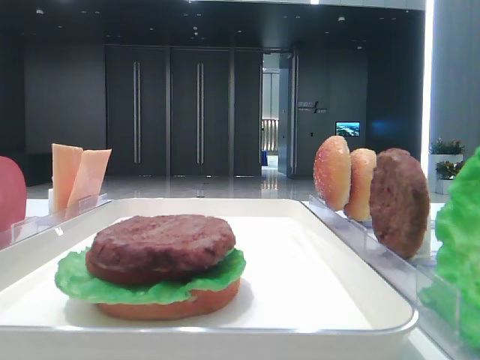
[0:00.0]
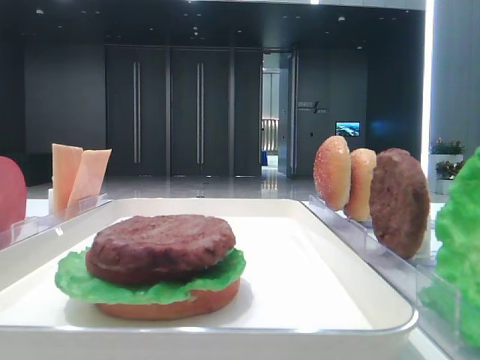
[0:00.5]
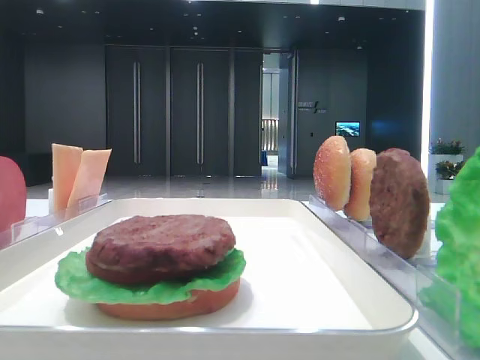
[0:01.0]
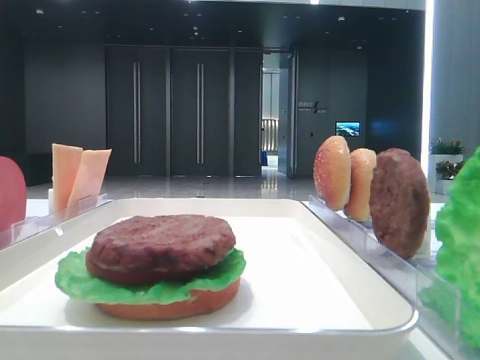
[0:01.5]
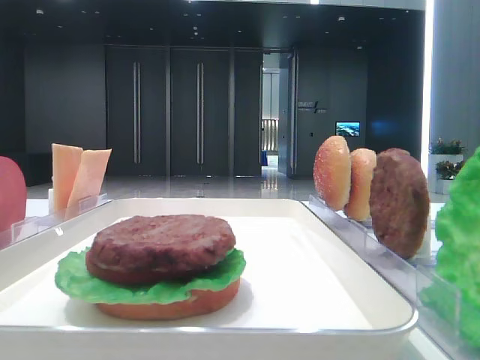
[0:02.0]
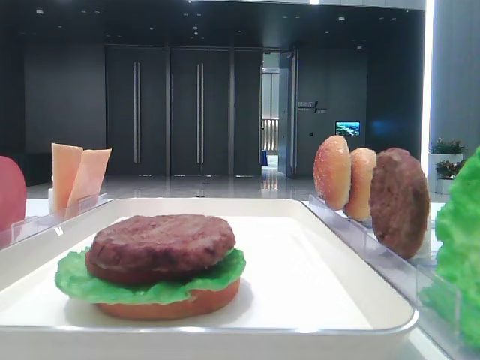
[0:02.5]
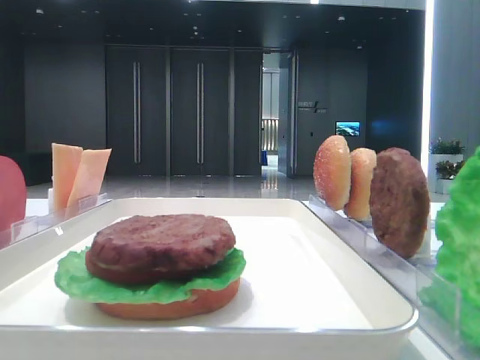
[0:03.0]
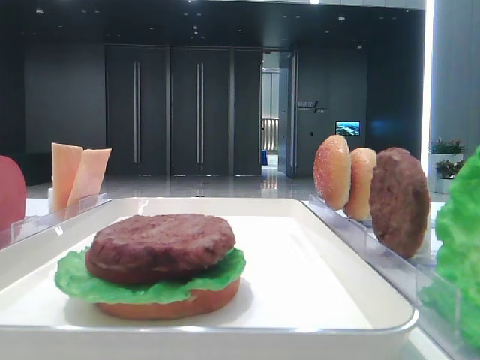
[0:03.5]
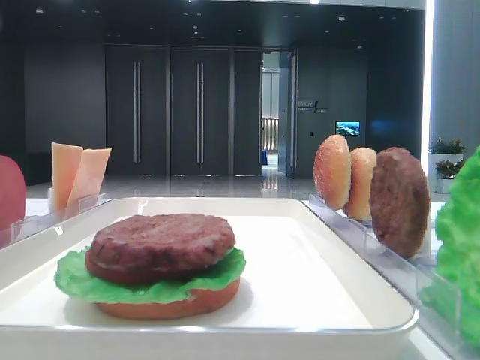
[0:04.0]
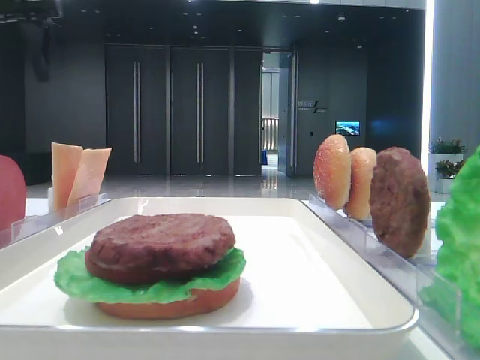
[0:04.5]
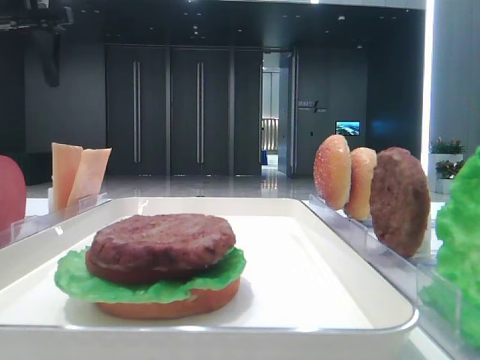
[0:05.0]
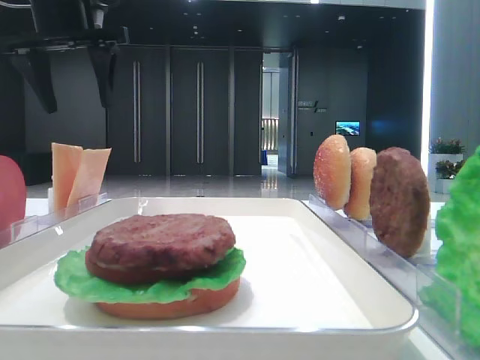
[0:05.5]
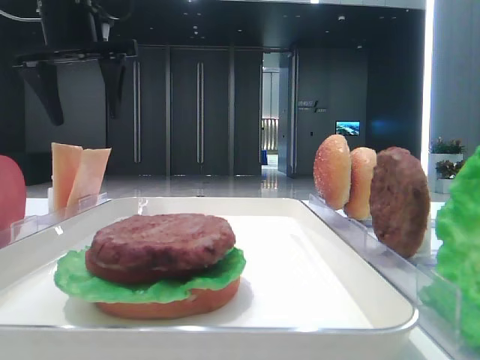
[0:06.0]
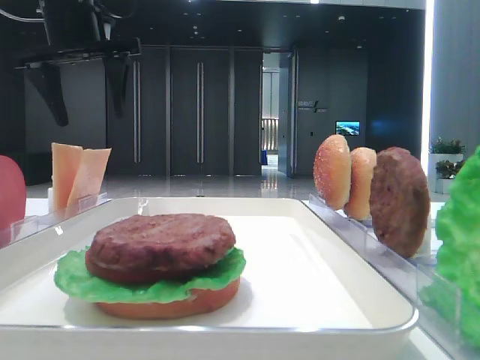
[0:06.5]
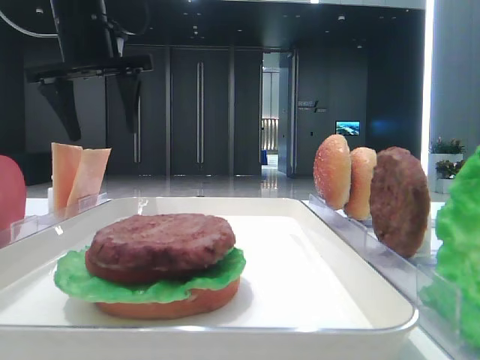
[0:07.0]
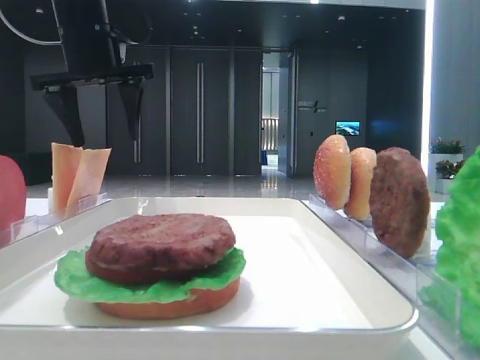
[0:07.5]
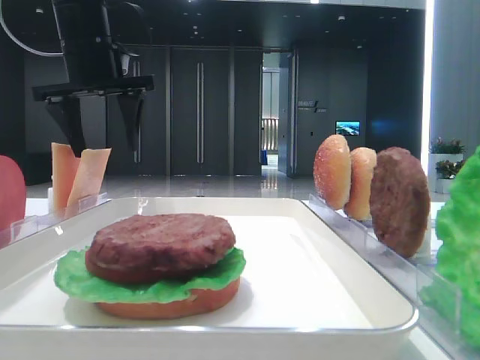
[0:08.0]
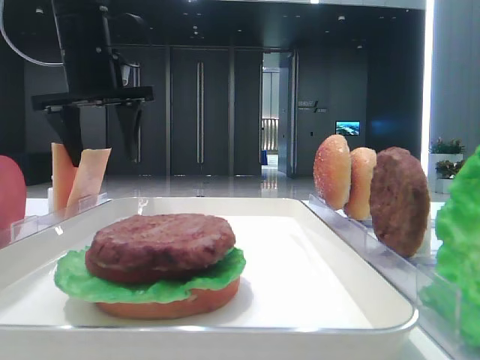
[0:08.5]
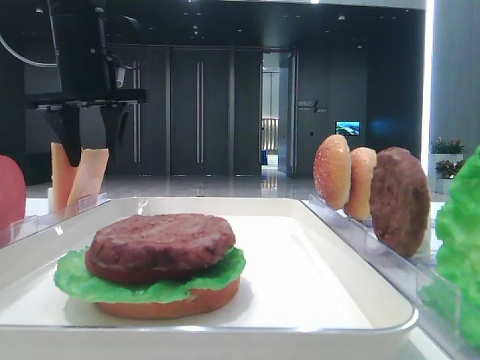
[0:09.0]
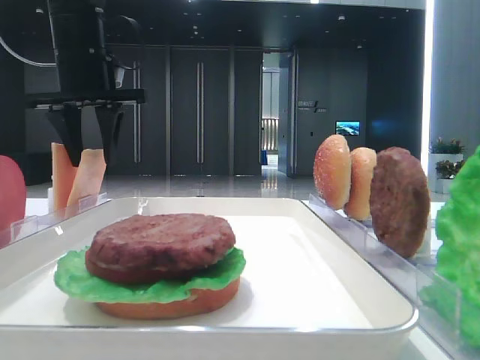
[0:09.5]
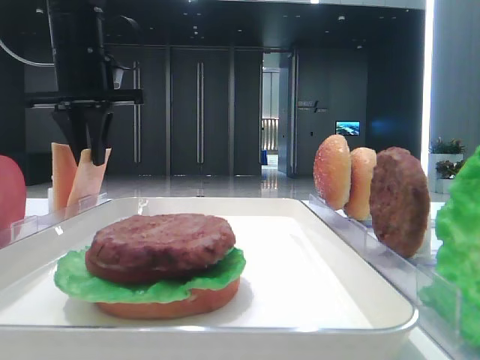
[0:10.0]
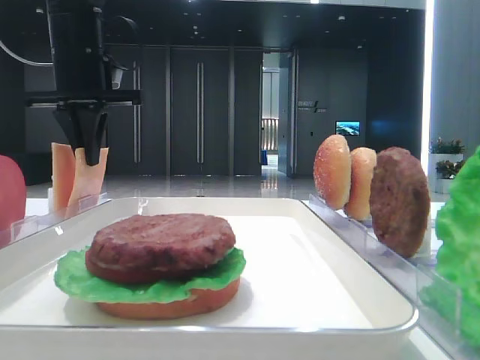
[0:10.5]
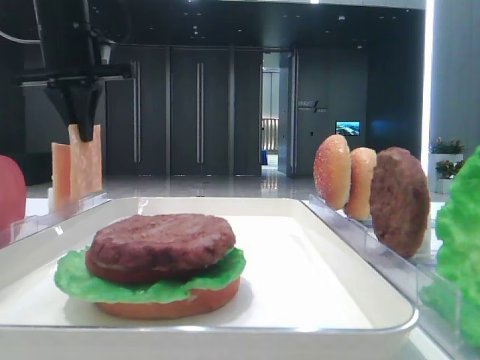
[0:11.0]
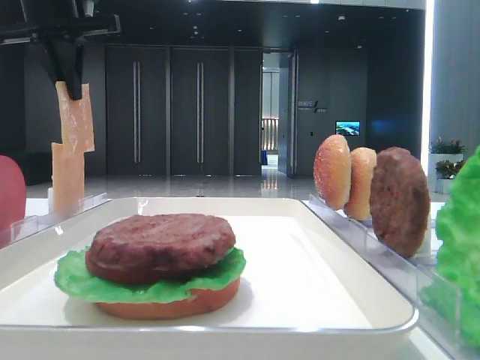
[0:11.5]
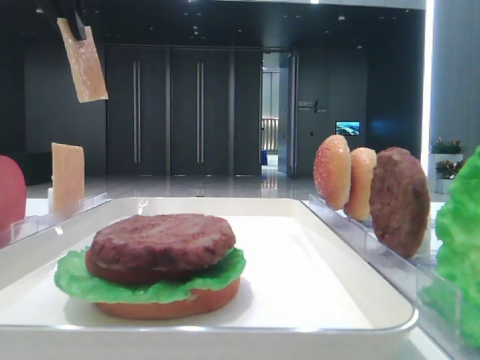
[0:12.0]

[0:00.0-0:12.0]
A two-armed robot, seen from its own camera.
Step, 0:00.0 to 0:10.0: Pick up the cheese slice with the left hand.
0:02.0 to 0:04.0: The left gripper goes some 35 cm forward.
0:04.0 to 0:06.0: The left gripper moves forward, to the right and downward, some 15 cm.
0:06.0 to 0:08.0: The grippers move only a little.
0:08.0 to 0:10.0: The left gripper closes its fingers.
0:10.0 to 0:12.0: The left gripper moves upward and backward, approximately 15 cm.

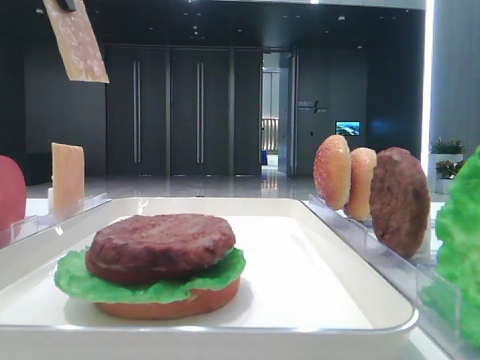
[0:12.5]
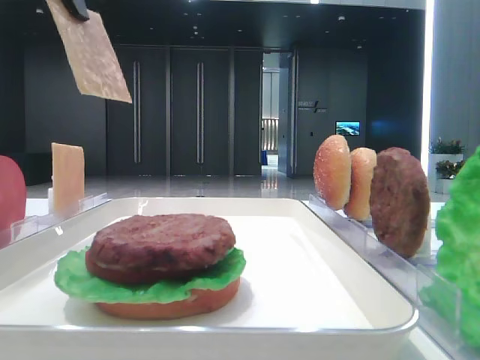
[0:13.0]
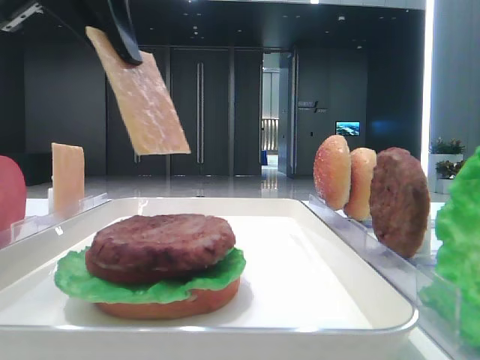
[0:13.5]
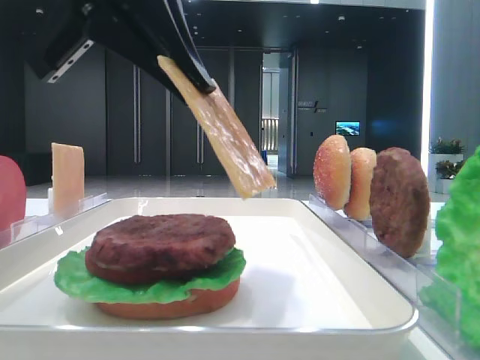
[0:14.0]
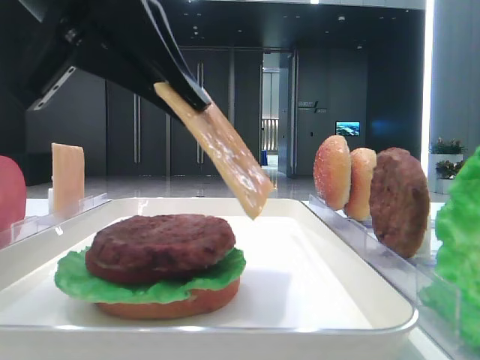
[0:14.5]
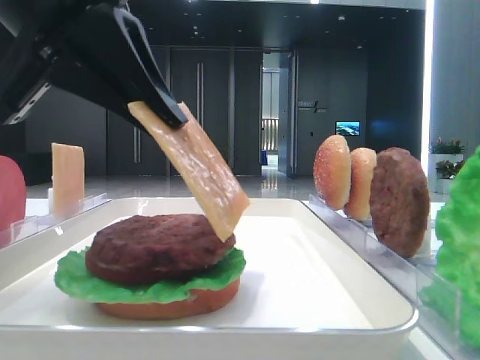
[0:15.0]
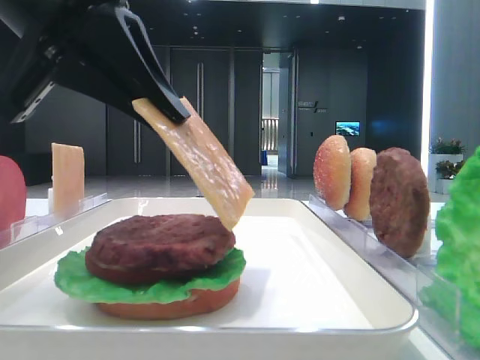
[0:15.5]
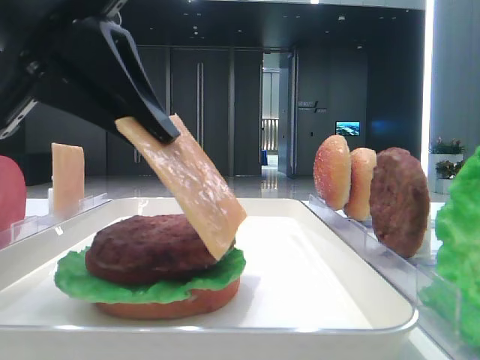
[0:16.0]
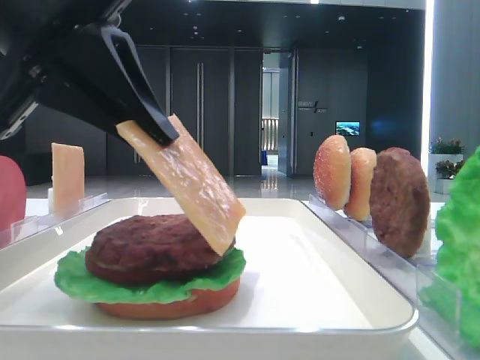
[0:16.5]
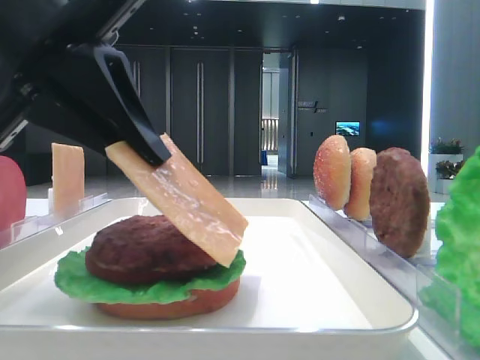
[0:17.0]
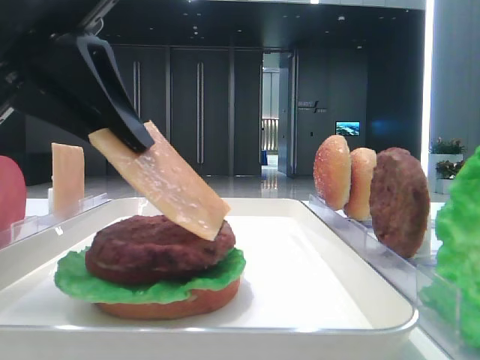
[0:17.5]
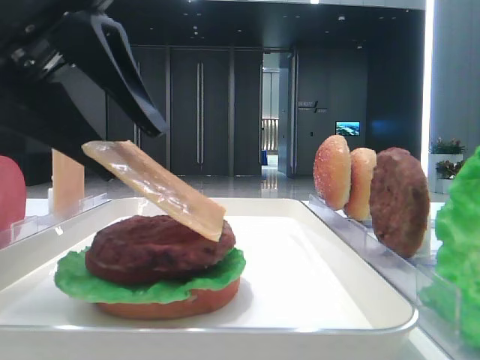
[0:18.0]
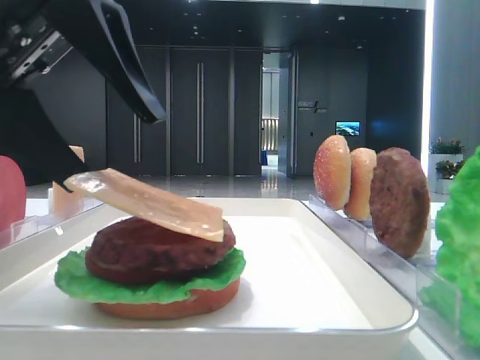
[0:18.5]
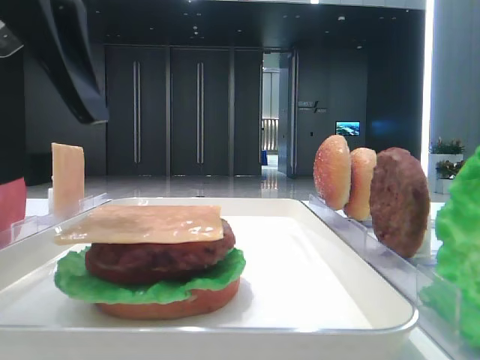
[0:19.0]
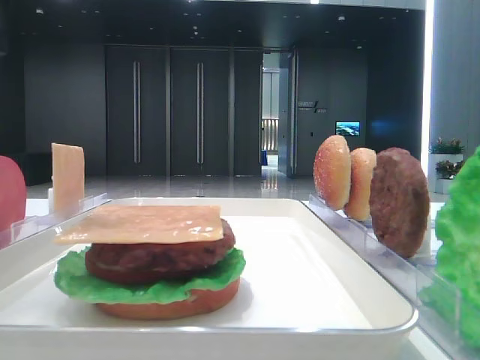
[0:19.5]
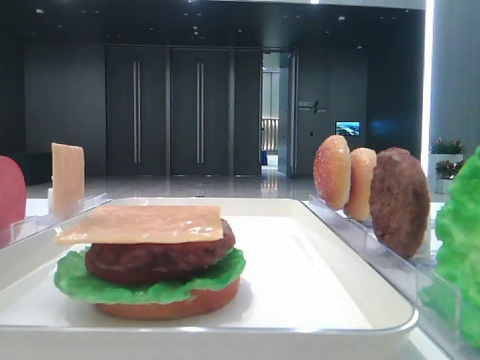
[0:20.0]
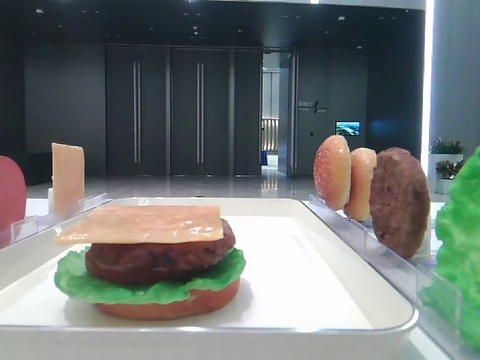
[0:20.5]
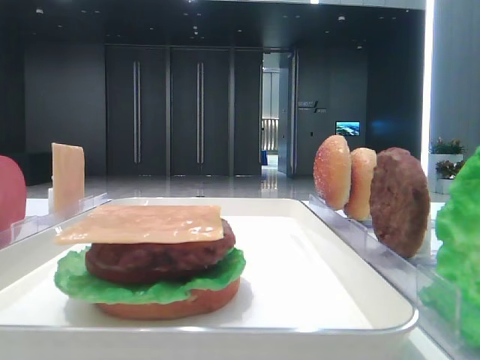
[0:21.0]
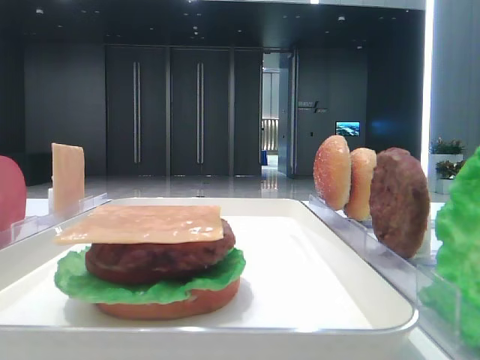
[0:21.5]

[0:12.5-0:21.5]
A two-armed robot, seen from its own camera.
Step, 0:12.5 to 0:18.5: Place the cheese slice on the patty with the left hand.
0:12.5 to 0:14.5: The left gripper heads downward, backward and to the right, covering about 20 cm.
0:14.5 to 0:17.0: The grippers move only a little.
0:17.0 to 0:19.5: The left gripper goes roughly 10 cm upward and to the left, and opens.
0:19.5 to 0:21.5: The left gripper moves to the left and upward, approximately 15 cm.

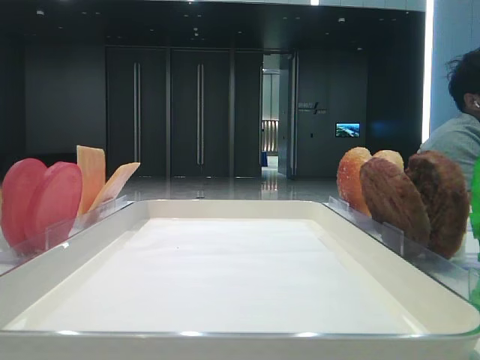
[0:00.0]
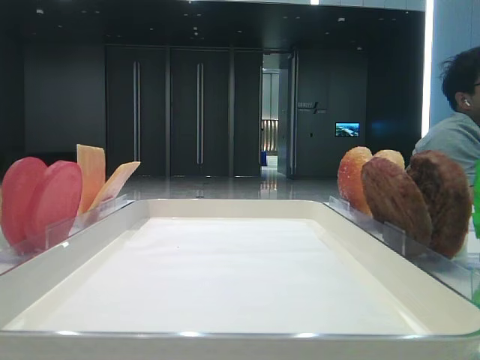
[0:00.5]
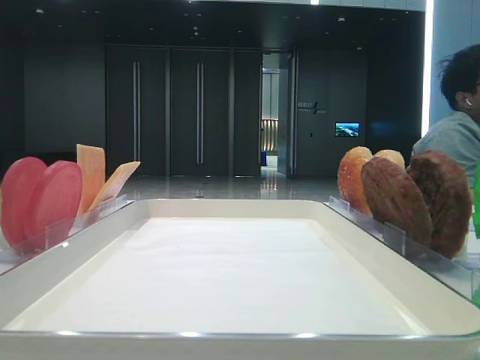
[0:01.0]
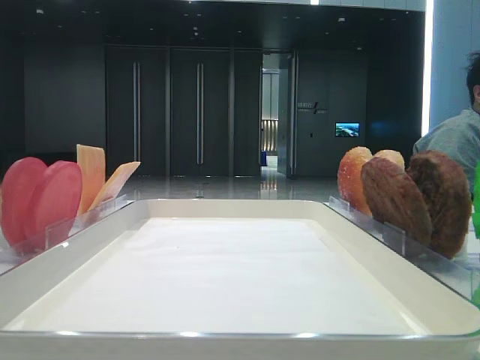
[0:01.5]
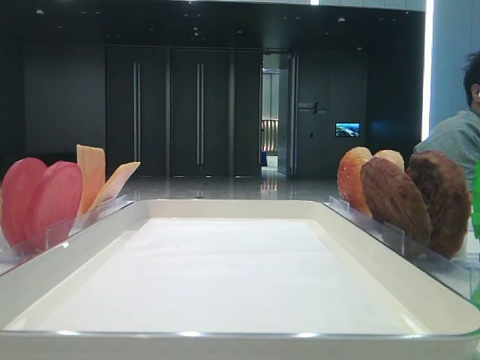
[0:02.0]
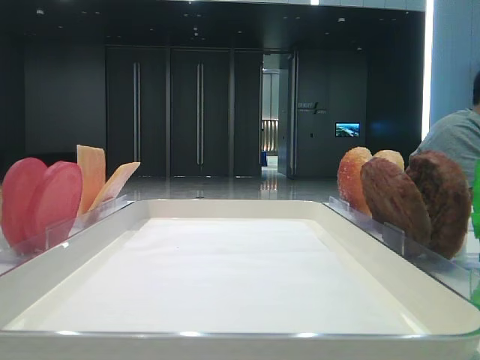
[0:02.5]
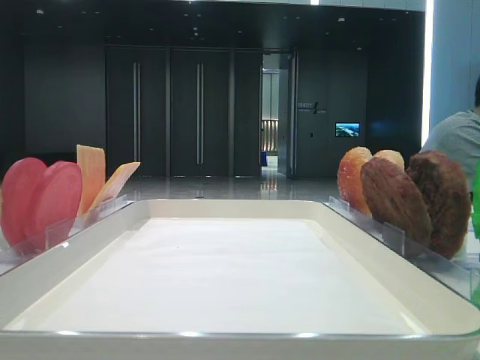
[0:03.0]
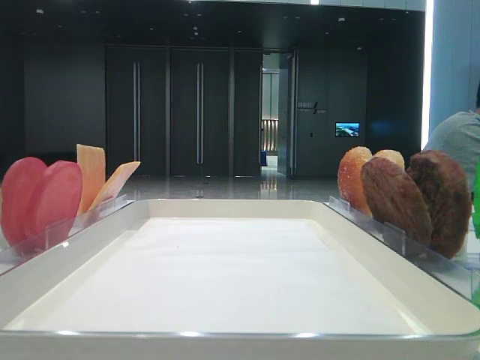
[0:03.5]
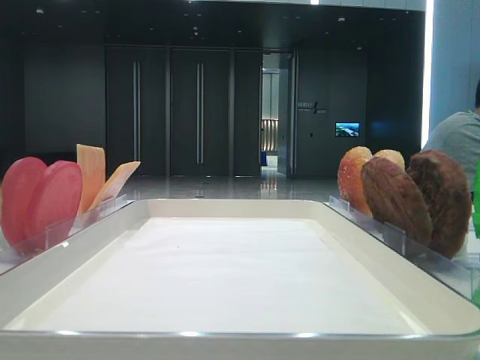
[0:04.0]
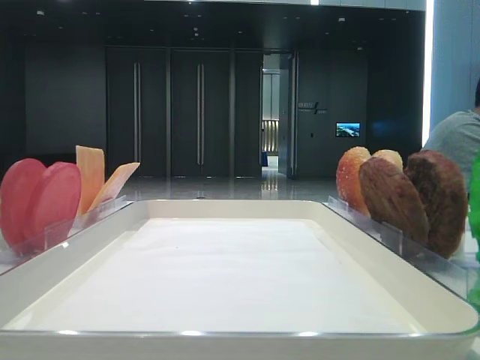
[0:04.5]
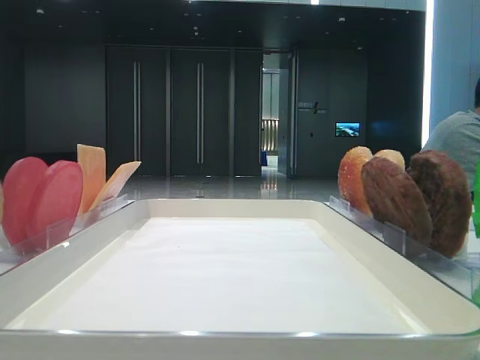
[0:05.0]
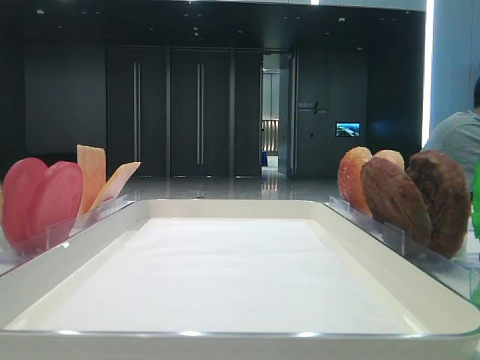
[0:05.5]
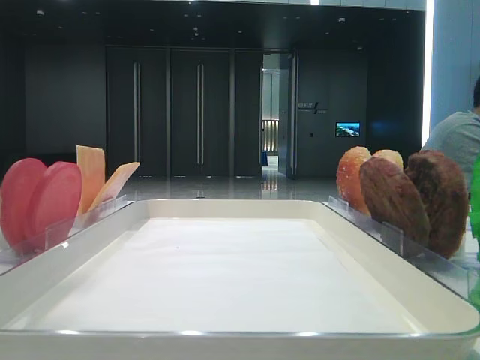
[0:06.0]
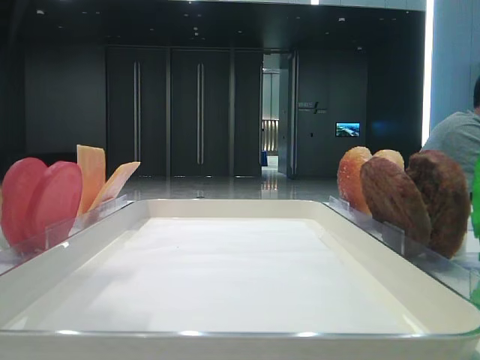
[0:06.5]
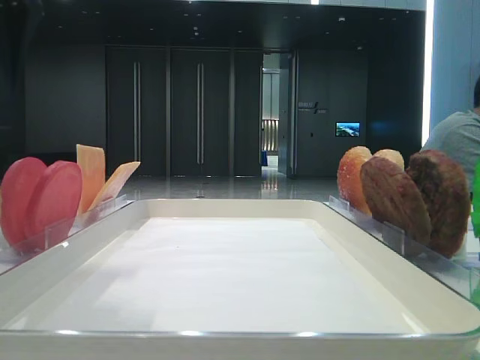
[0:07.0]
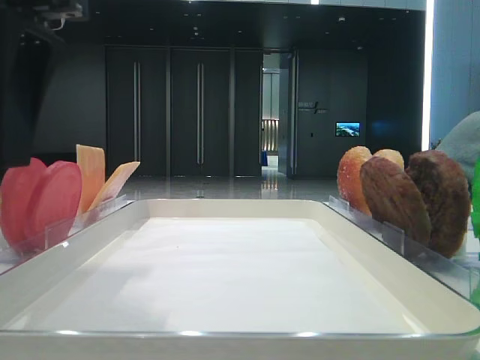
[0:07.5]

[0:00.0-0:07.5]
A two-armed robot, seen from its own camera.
0:05.5 to 0:07.5: The left gripper shifts approximately 15 cm to the right and downward.
